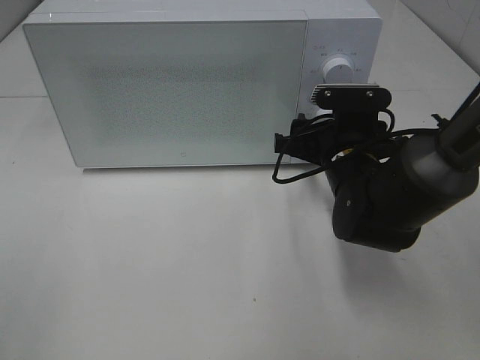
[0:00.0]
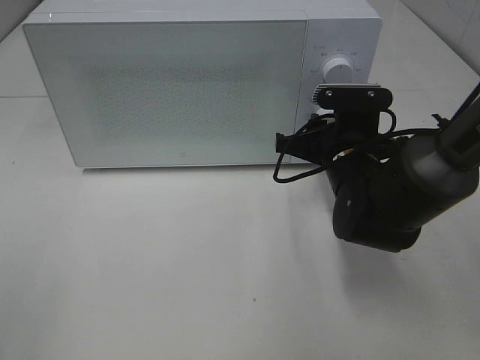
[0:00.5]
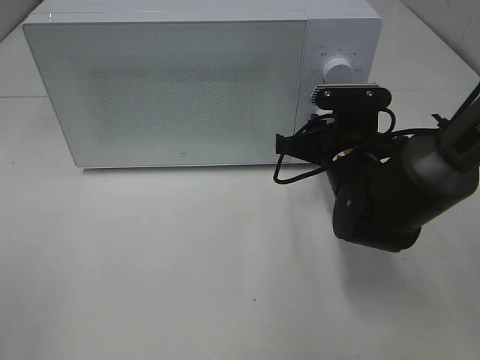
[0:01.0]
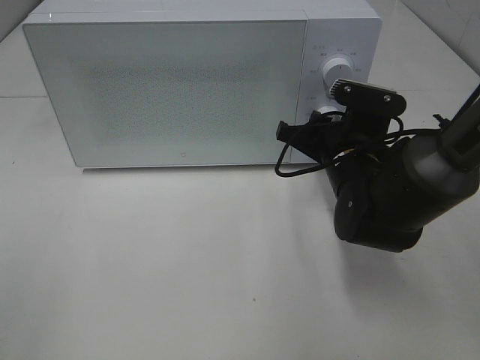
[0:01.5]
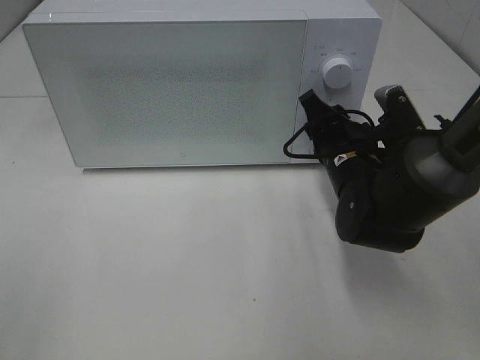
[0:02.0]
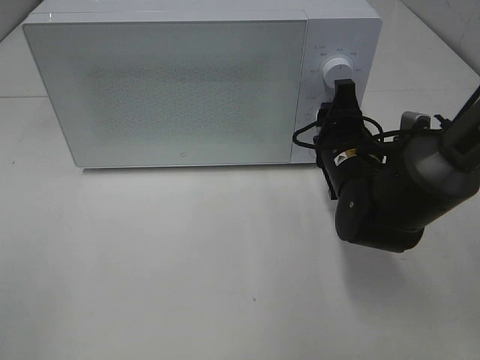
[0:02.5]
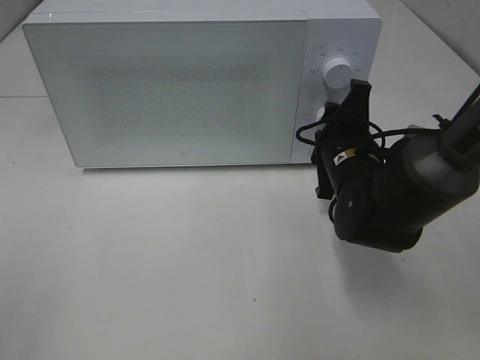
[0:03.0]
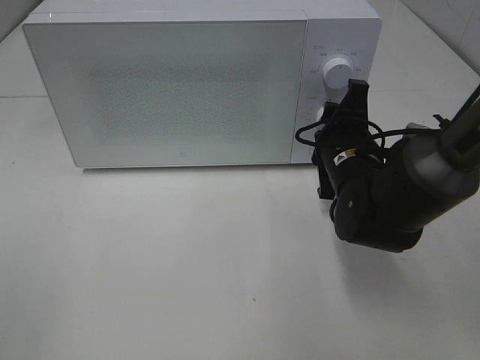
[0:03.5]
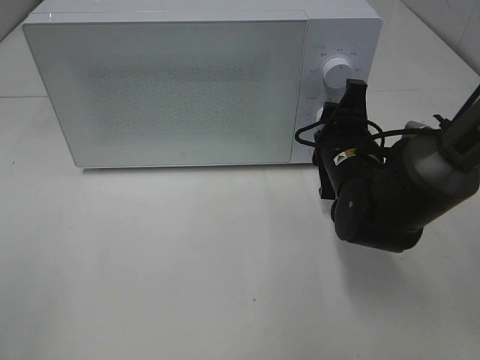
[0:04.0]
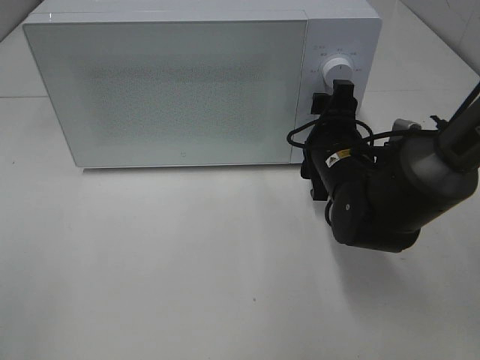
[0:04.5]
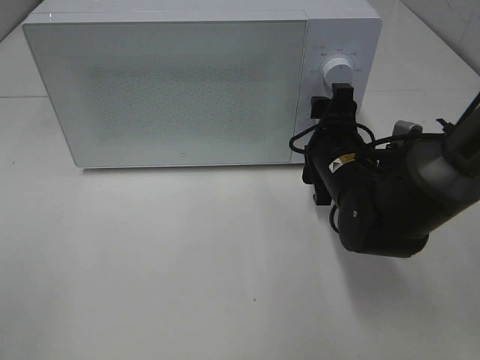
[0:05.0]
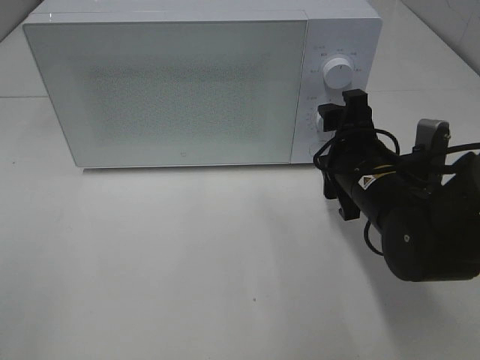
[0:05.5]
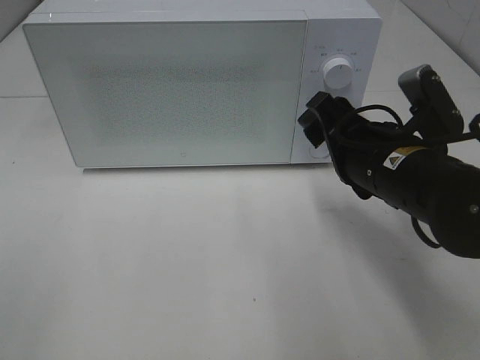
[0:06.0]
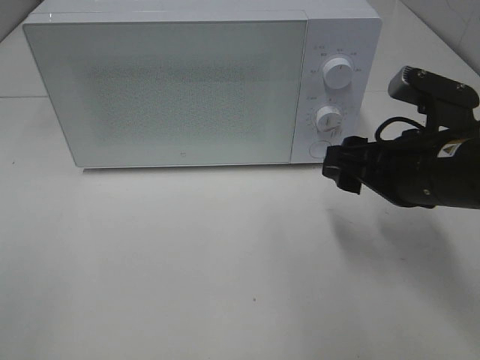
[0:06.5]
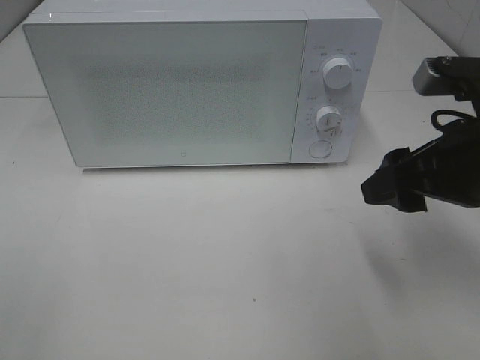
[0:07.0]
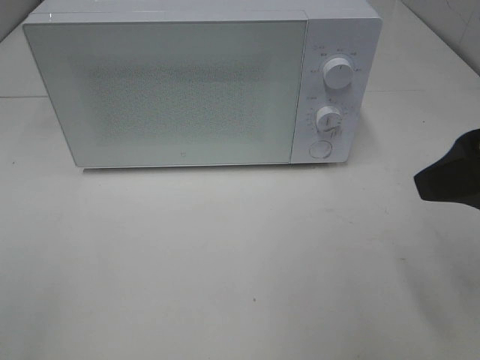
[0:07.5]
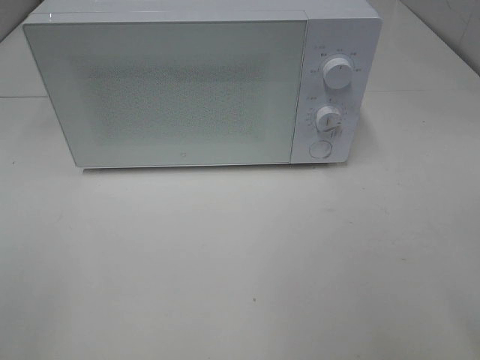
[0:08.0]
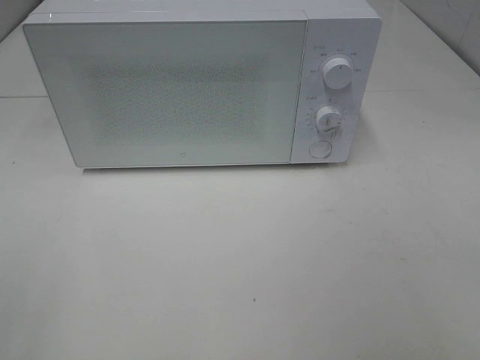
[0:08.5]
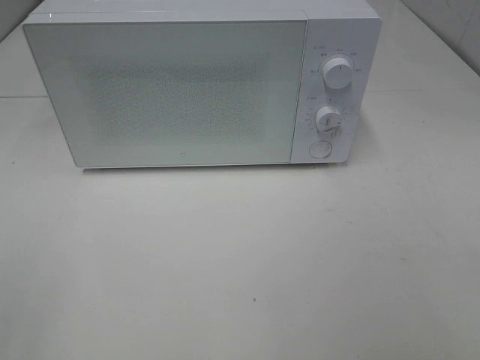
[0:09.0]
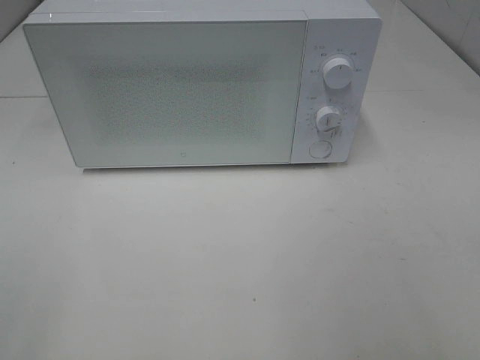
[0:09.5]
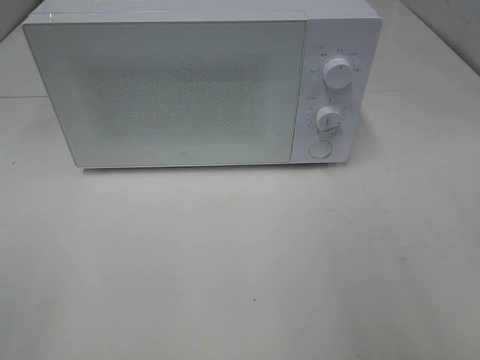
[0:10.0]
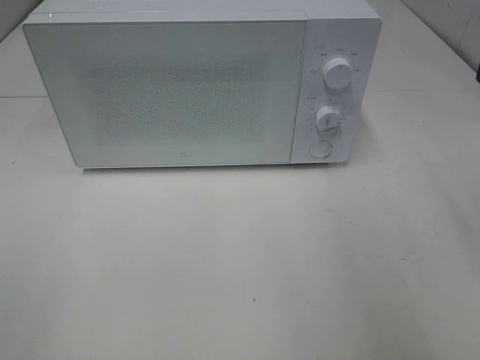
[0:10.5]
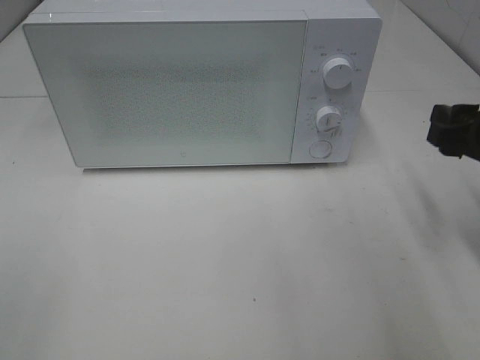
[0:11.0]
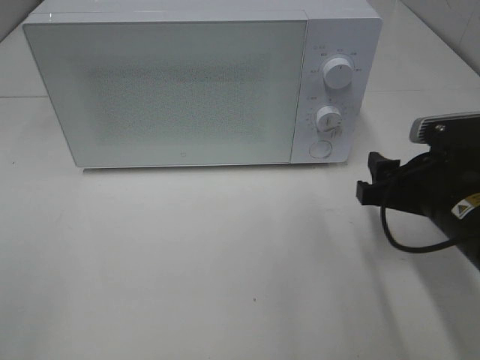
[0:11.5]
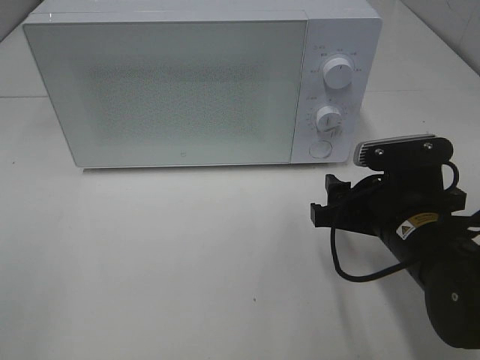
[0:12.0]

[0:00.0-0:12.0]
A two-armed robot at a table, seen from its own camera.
Task of the whole recording: Heat Sandwich.
Step, 0.0 to 4.5 s: Right hand: twist timer button.
0.0 to 2.0 s: The right gripper closes its fingers.
4.0 to 6.0 s: The right gripper is displaced backward and upward by roughly 10 cm, and opens its fingers.
6.0 to 8.0 s: The right gripper goes approximately 25 cm backward, upward and to the right.
10.0 to 12.0 s: The right gripper is displaced downward, to the left and forward by some 25 cm.

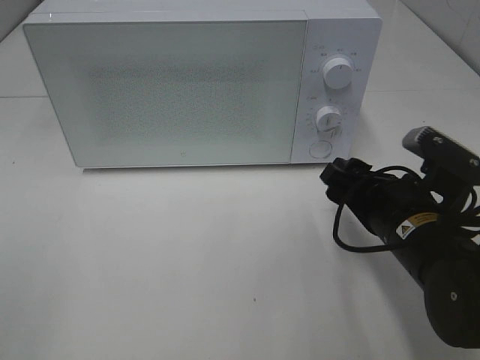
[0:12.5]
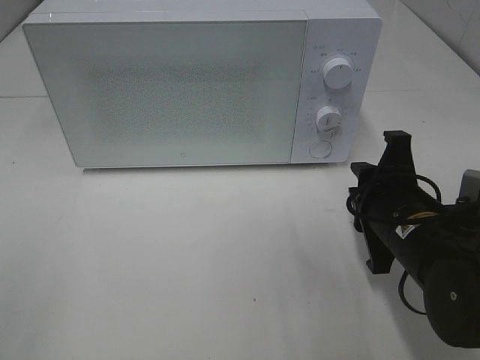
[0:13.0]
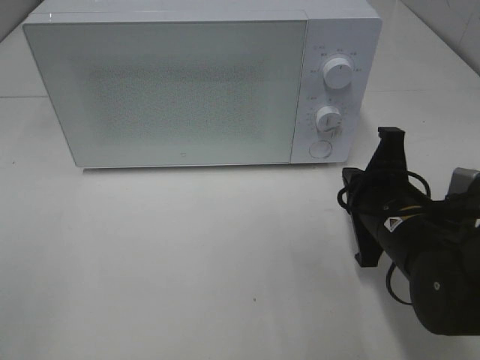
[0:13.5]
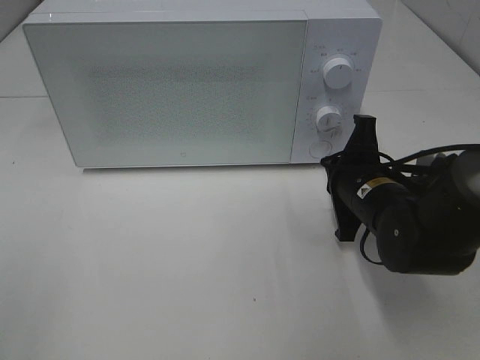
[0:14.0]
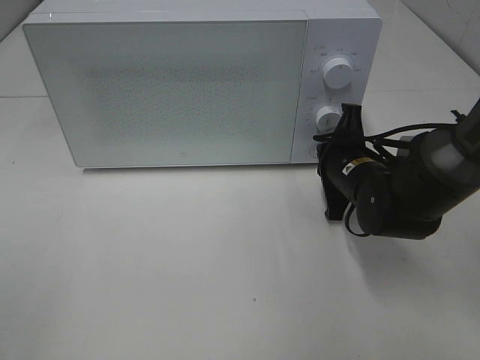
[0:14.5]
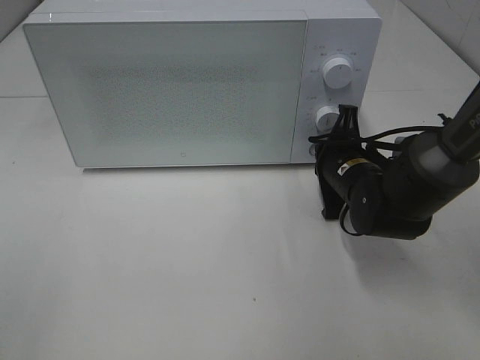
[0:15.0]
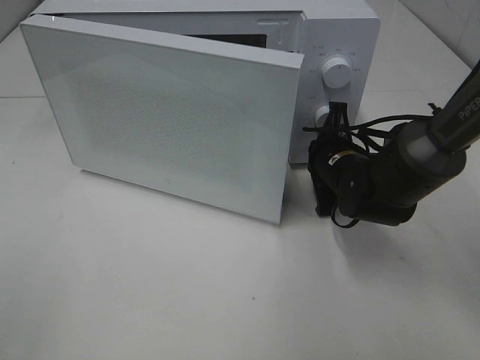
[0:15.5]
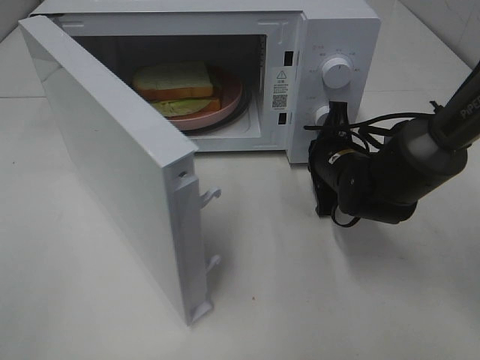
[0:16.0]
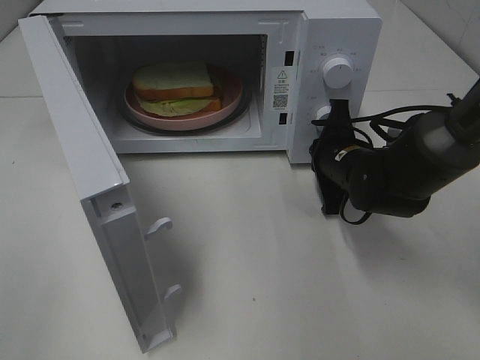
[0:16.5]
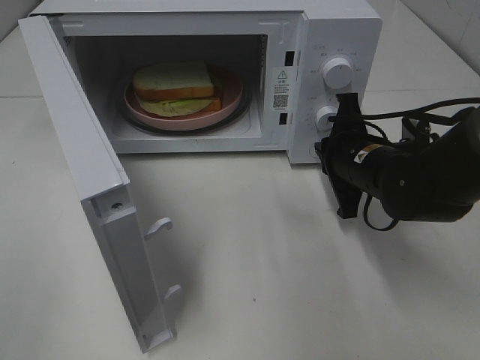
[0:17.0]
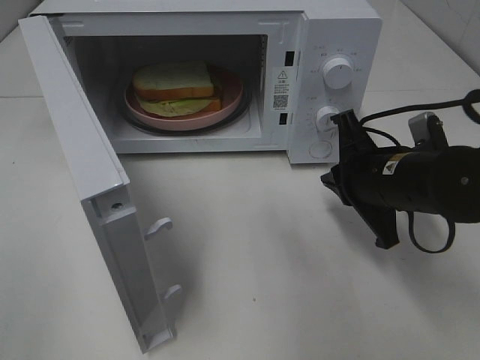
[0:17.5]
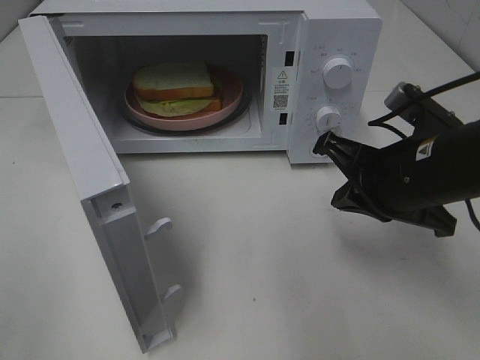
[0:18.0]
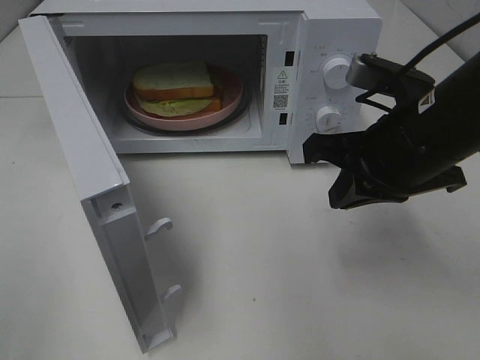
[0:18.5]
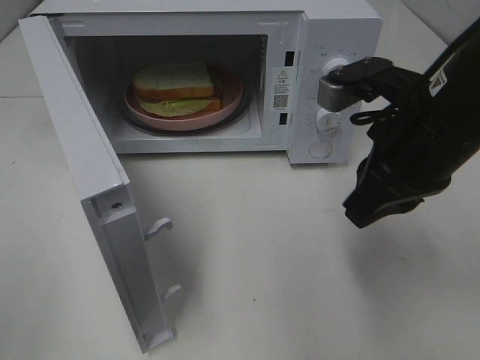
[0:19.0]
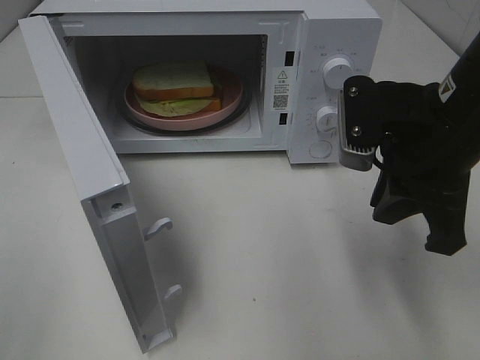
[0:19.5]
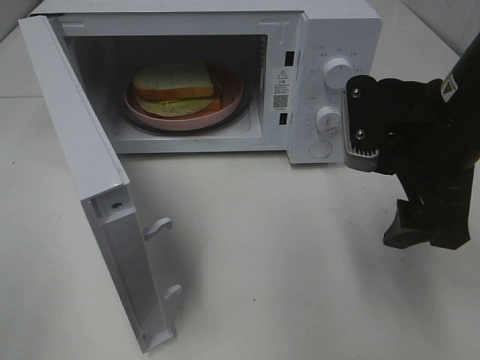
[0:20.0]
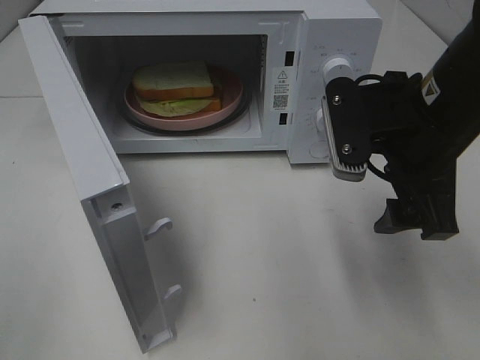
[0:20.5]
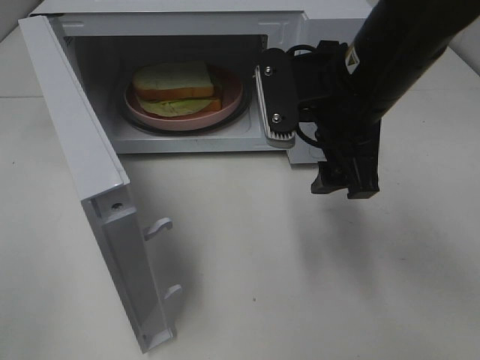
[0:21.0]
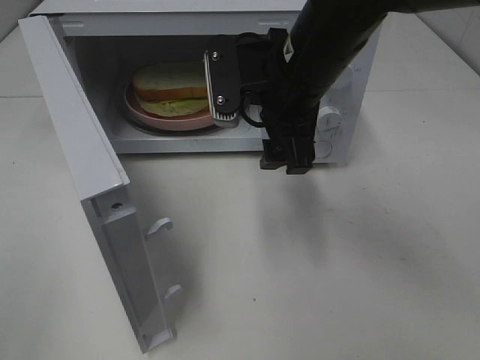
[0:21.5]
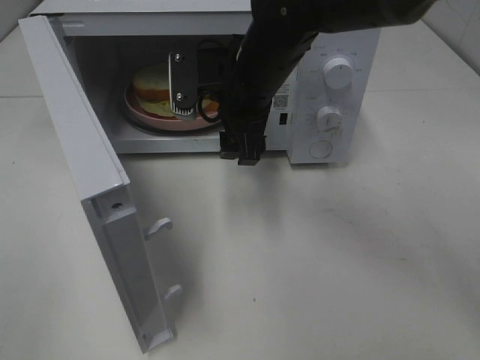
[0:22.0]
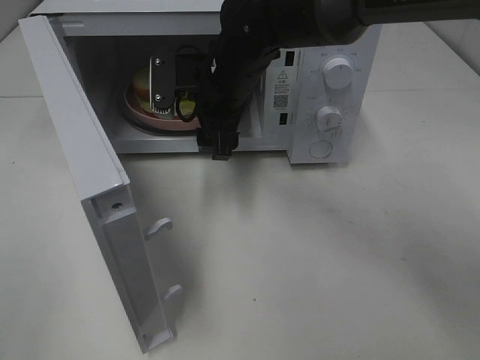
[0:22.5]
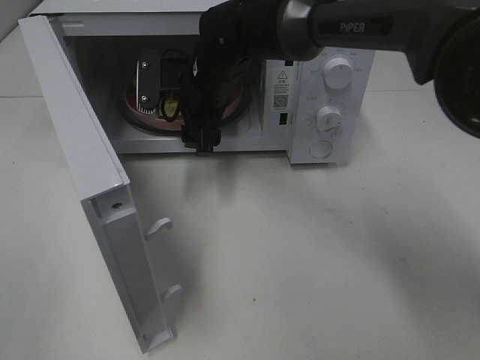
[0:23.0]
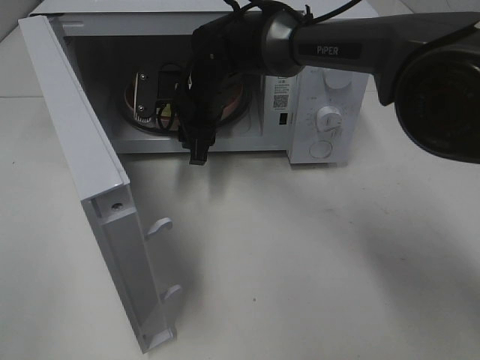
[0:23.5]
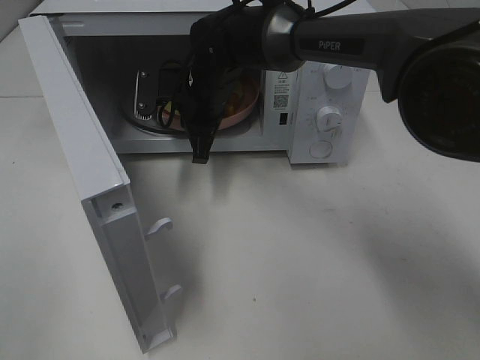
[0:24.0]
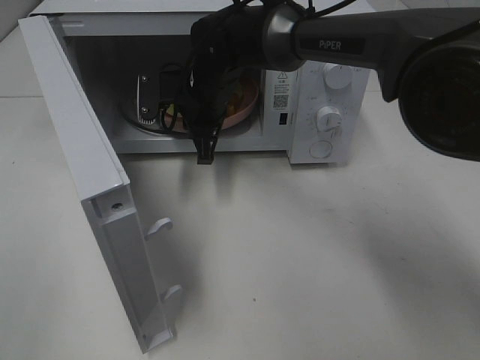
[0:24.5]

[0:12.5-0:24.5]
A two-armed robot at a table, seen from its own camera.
Task of the whole recording: Heat Sandwich.
Step, 12.5 to 17.0 s: Right hand: press the switch.
Step, 17.5 to 24.0 s: Right hand: grab the plate with the sandwich.
12.5 to 14.5 s: The right gripper shifts about 10 cm forward, and closes its fingers.
16.5 to 18.5 s: The right gripper goes some 20 cm upward and backward.
18.5 to 20.5 s: The right gripper opens its fingers.
20.5 to 22.5 s: The right gripper moves to the left and forward, about 20 cm.
22.5 to 24.5 s: The right gripper changes place by roughly 5 cm, and closes up.

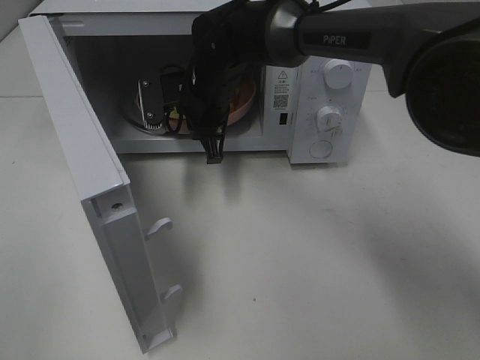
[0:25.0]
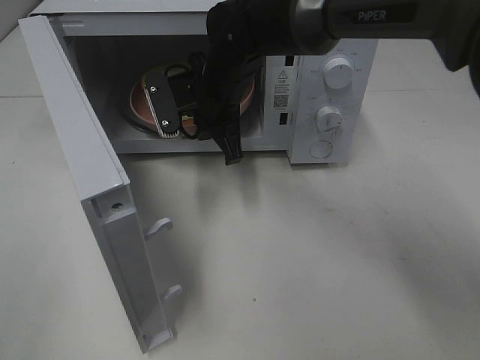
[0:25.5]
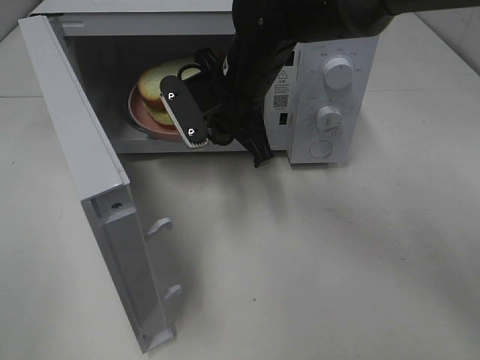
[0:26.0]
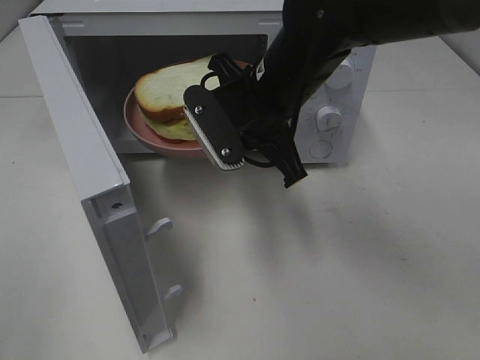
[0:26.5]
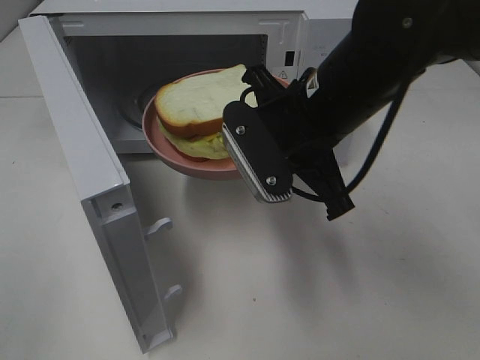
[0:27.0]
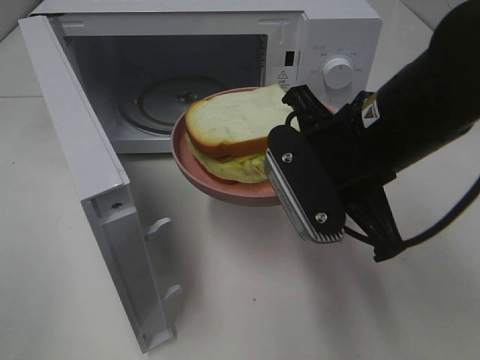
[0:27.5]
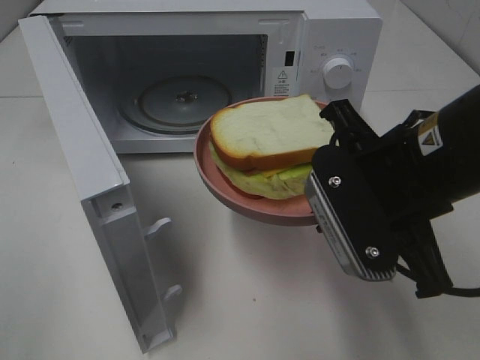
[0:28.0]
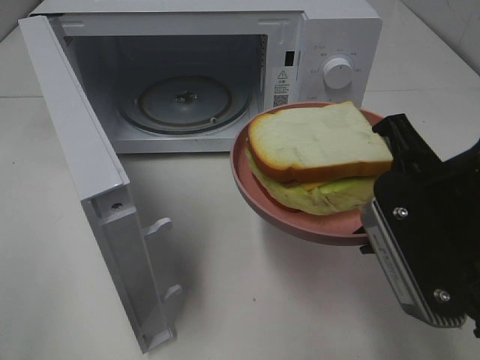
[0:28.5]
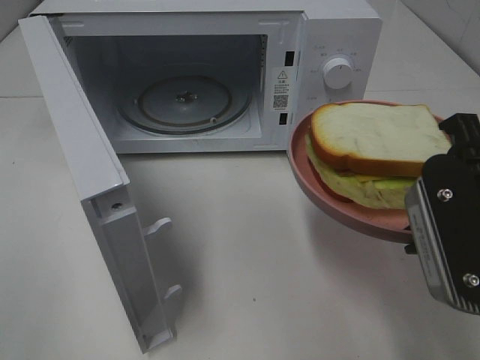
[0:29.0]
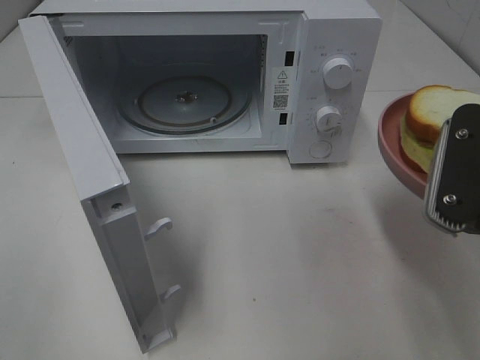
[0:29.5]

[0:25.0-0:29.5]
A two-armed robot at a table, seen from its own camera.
Task of the whole recording: Heat Sandwich.
25.0 to 27.0 s: The right gripper is displaced backward, to the right and upward by roughly 20 cm.
27.0 to 29.5 s: The right gripper shifts approximately 15 cm to the right and backward.
